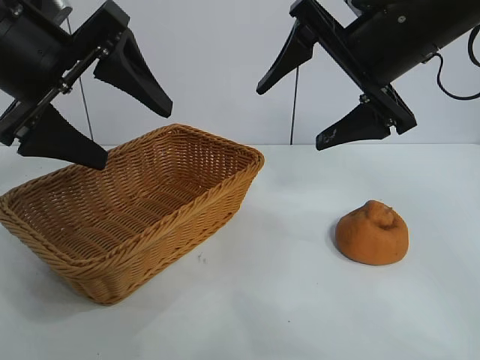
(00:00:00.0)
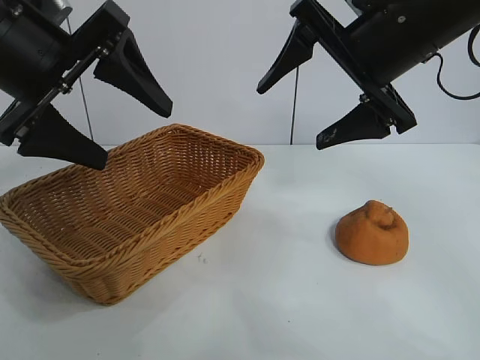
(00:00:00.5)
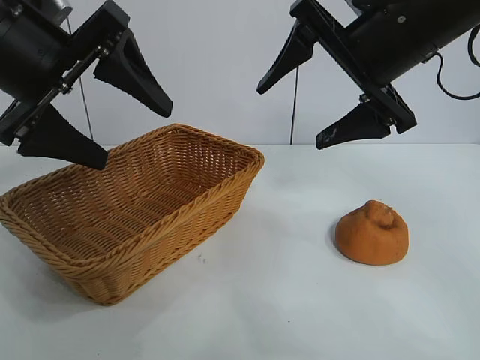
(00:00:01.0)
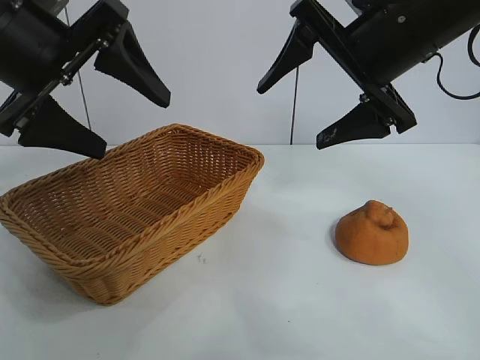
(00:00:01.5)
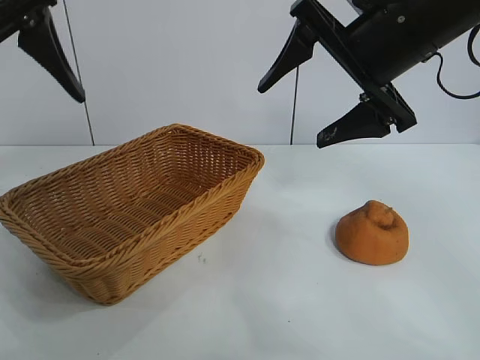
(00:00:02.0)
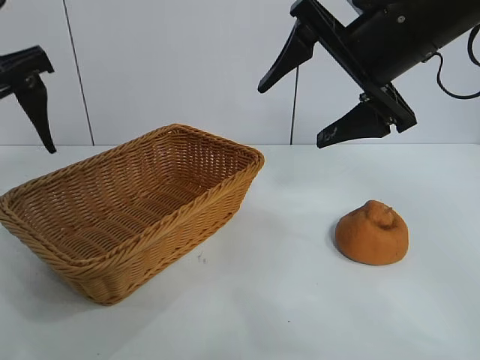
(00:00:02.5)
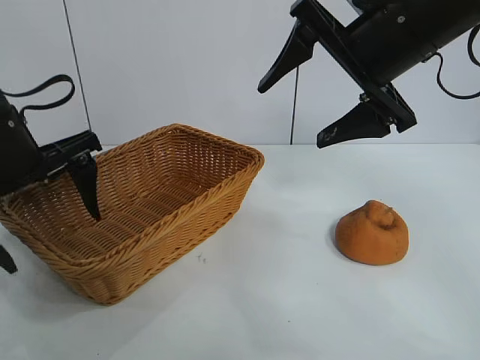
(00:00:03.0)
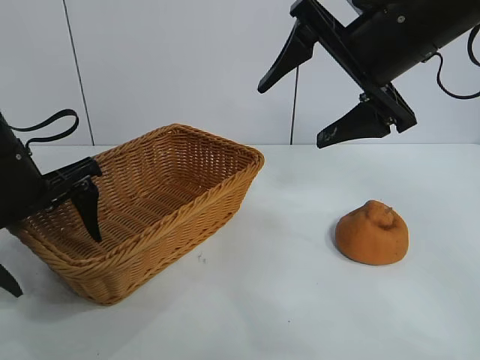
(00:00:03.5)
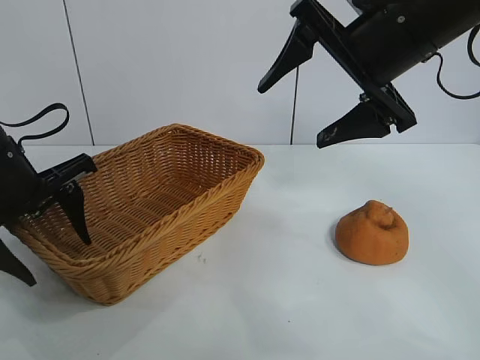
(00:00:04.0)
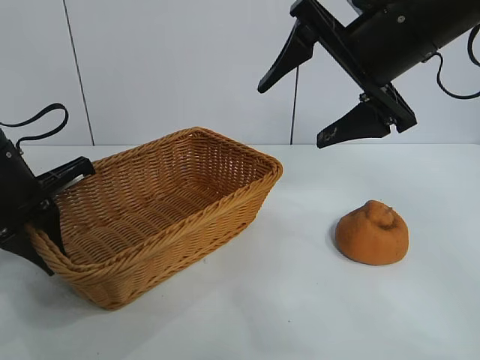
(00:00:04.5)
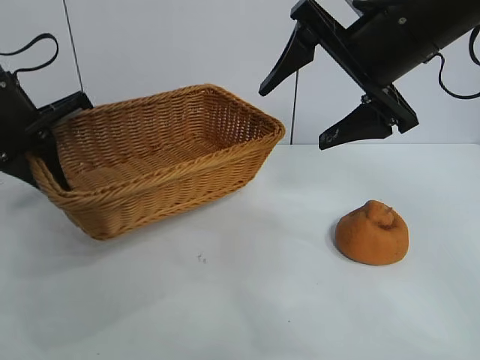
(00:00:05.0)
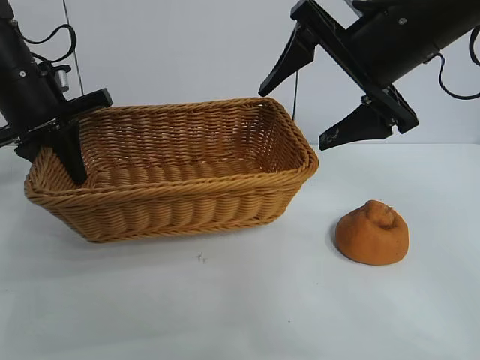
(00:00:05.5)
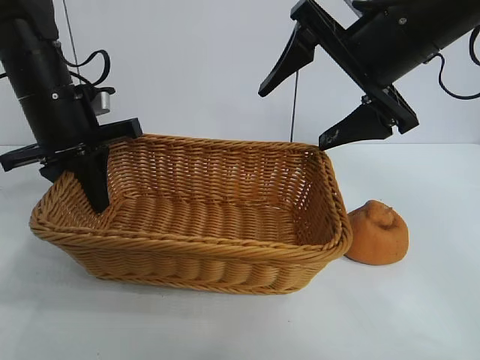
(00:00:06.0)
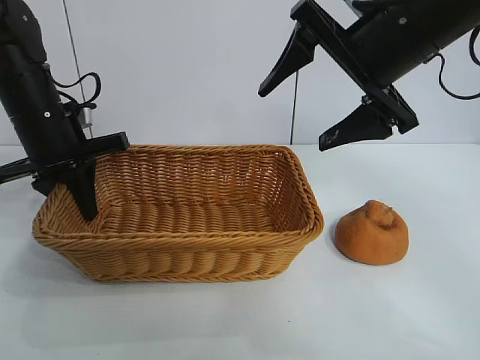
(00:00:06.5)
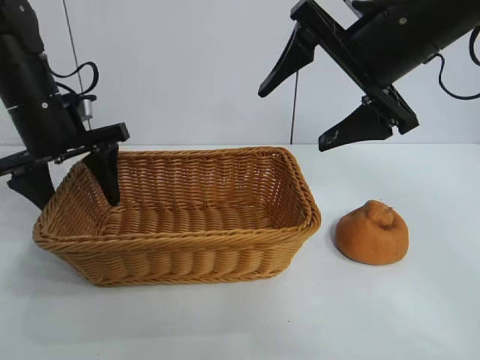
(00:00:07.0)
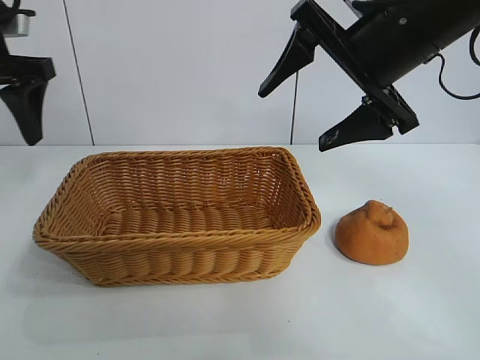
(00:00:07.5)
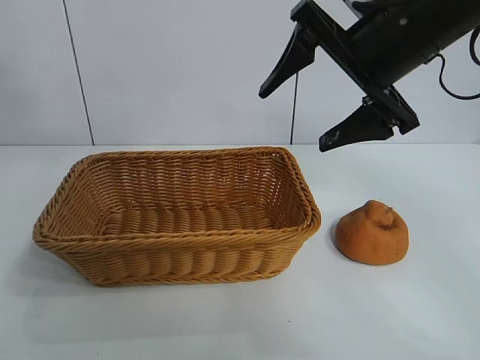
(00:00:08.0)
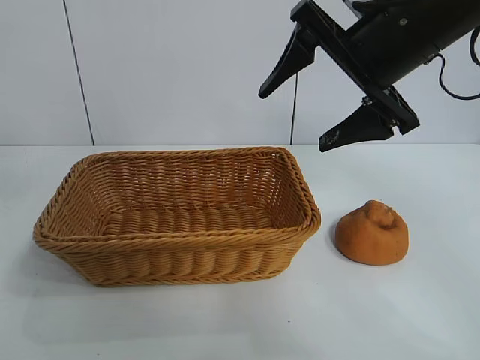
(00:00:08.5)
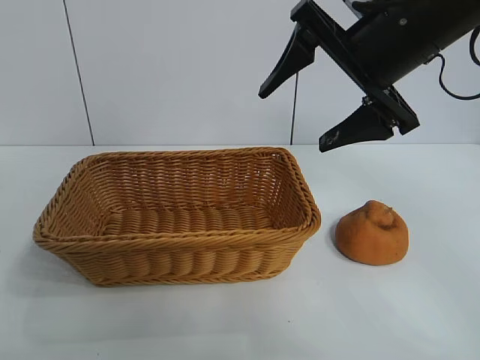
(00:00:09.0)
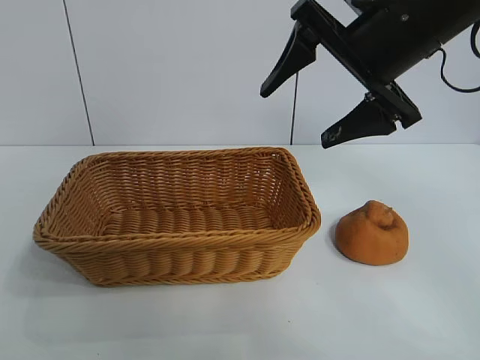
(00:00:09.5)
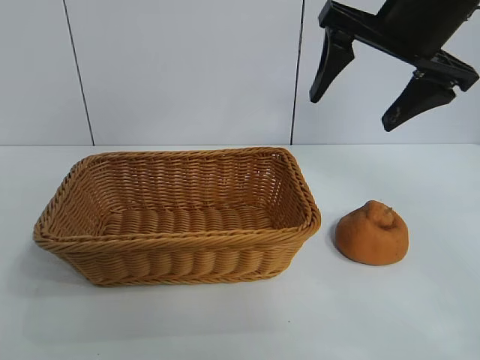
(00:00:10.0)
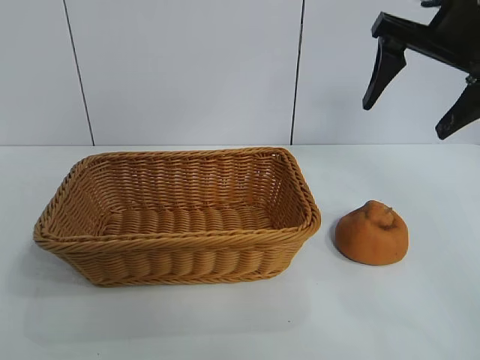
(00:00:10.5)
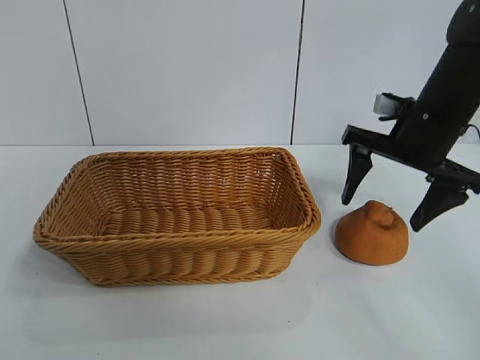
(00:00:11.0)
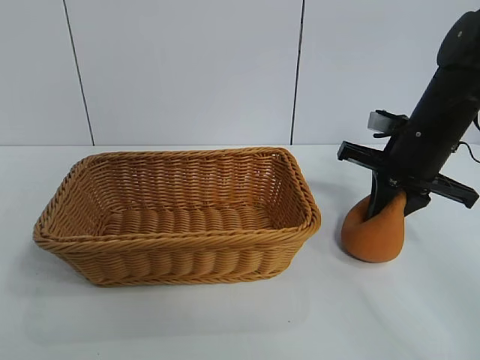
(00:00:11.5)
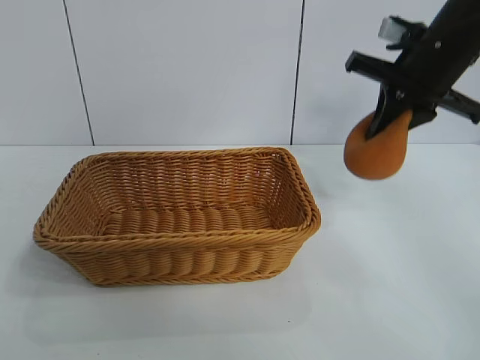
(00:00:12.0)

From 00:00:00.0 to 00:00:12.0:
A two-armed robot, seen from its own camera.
Task of the whole recording: pick up the orange and put it into the basket.
Step, from 00:00:00.0 to 00:00:04.0: Grasp the basket with left gripper.
Step, from 00:00:04.5 to 00:00:06.5: Place the basket in the center of view with left gripper.
Step, from 00:00:07.5 to 00:00:11.0: Grasp the orange with right gripper.

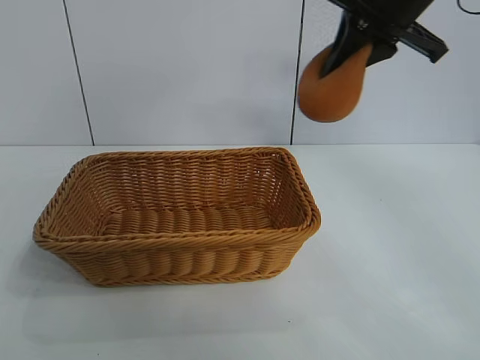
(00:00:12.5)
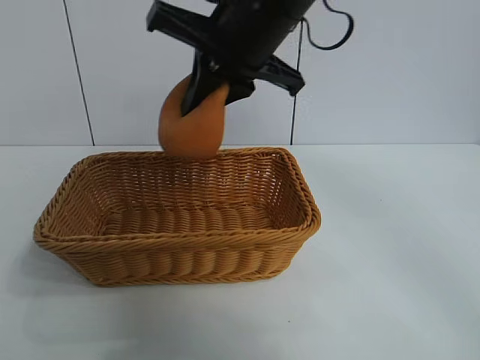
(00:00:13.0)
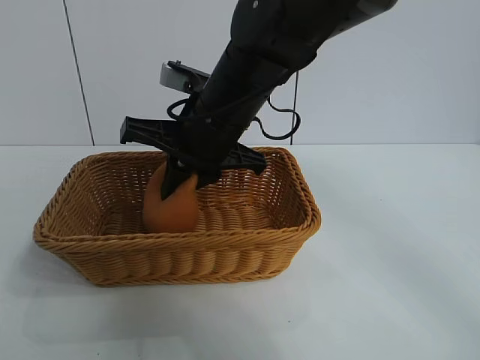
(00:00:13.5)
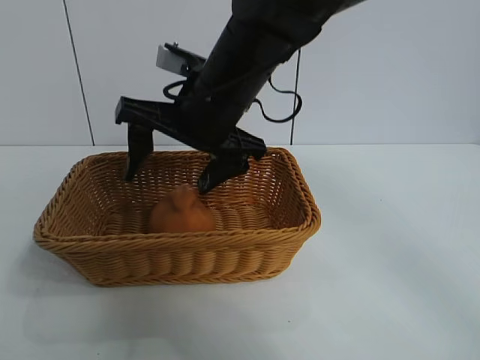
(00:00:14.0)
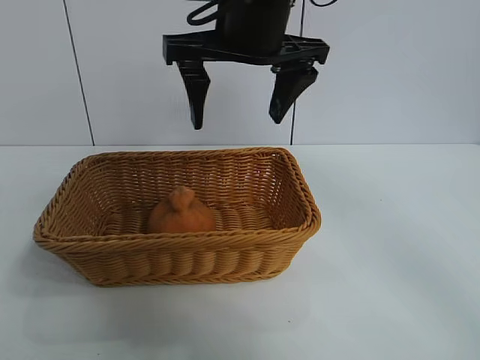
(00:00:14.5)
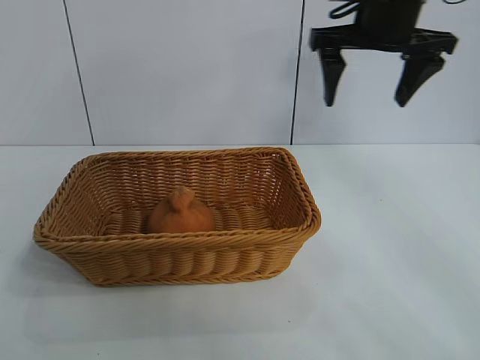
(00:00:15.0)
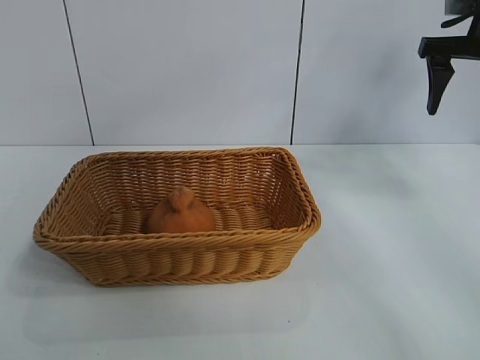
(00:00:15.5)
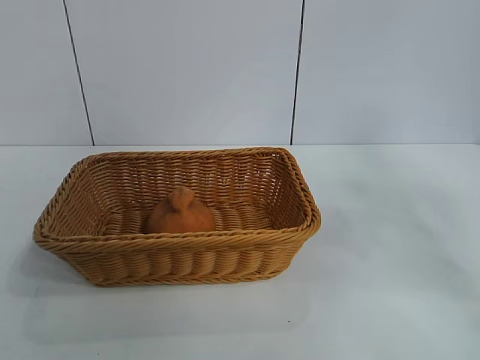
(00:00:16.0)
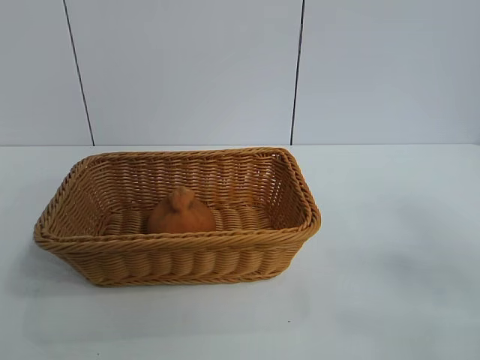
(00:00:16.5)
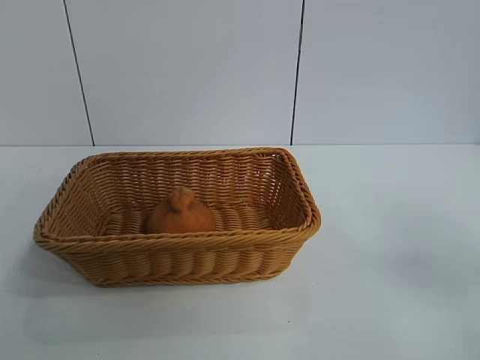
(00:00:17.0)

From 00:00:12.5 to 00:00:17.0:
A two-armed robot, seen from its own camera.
Task of the whole recording: pick up the orange and put it into the basket.
Step, from 00:00:12.5 to 00:00:14.0: Place the orange in the basket with right gripper.
